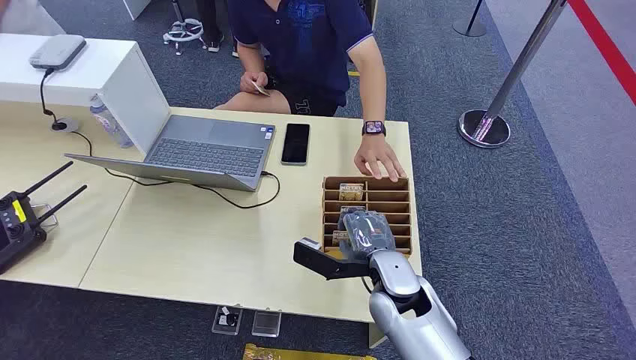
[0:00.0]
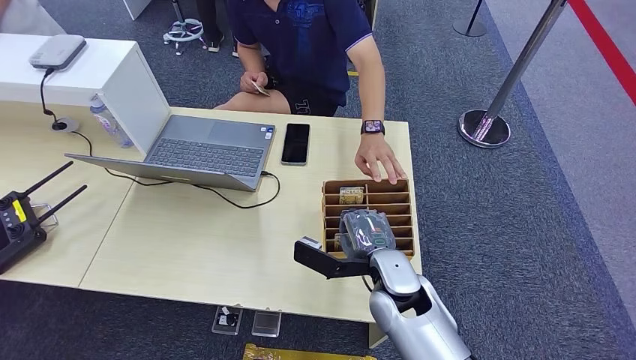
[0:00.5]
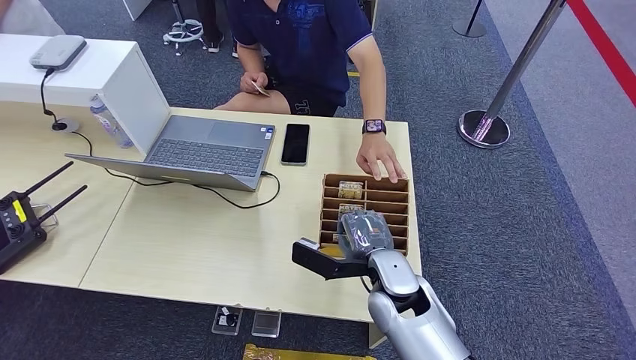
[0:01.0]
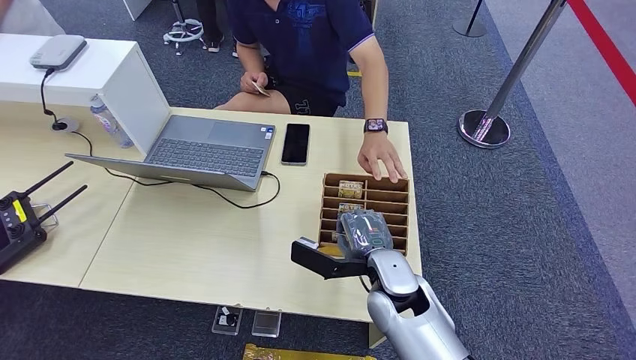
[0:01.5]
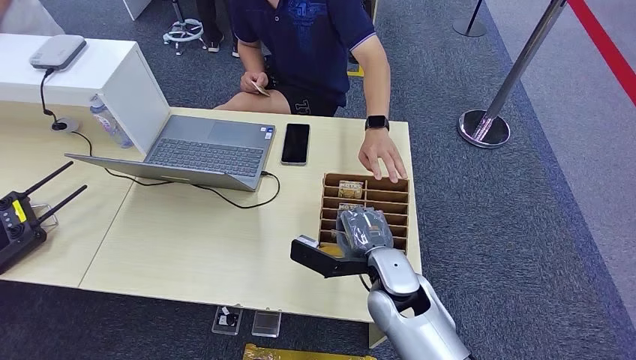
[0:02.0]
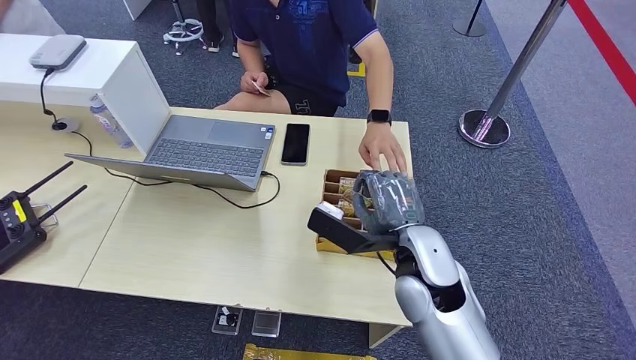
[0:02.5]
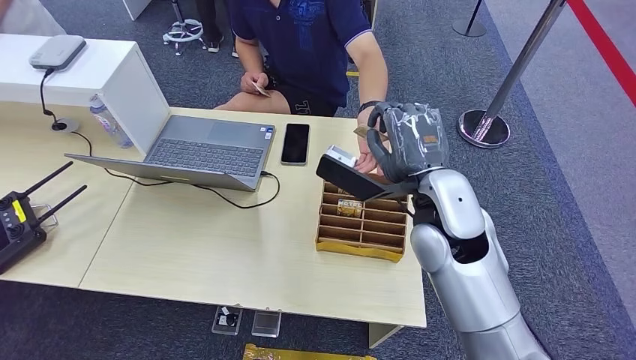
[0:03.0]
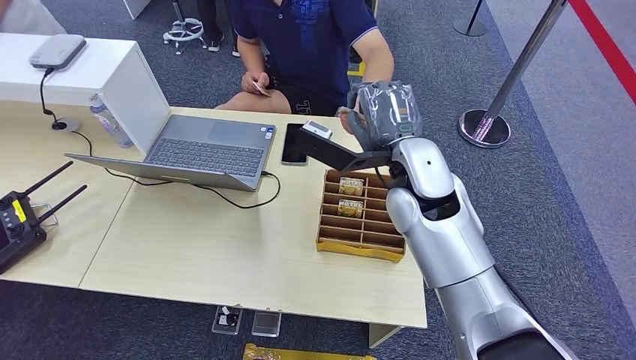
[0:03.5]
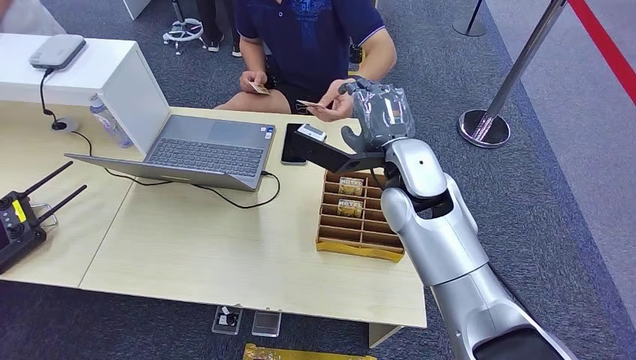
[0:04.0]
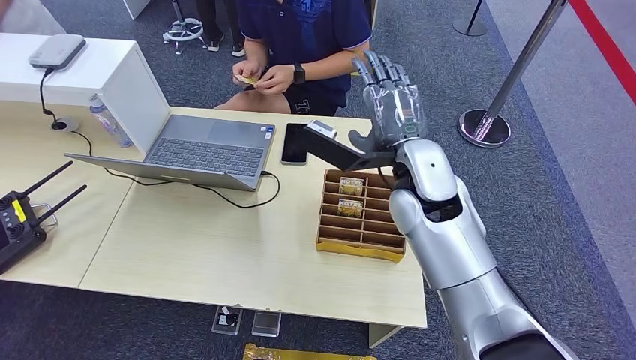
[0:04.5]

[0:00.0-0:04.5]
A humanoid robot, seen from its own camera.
Step, 0:00.0 to 0:02.0: Pick up the key card from the card box.
Step, 0:02.5 to 0:04.5: Hand the key card to the target.
0:02.0 to 0:04.5: The right hand travels upward and forward by about 20 cm.

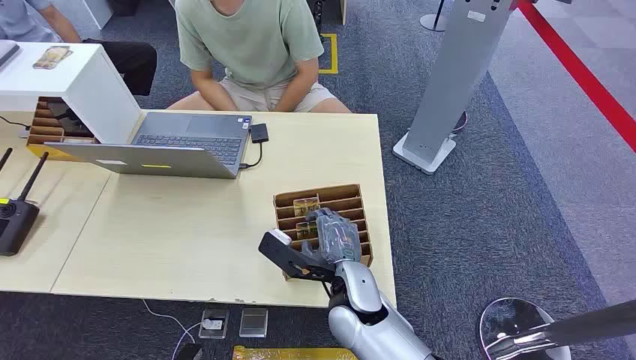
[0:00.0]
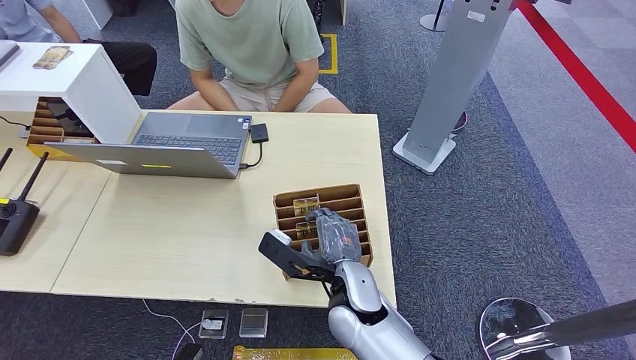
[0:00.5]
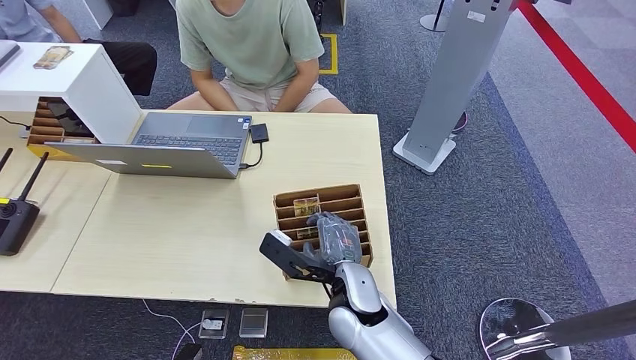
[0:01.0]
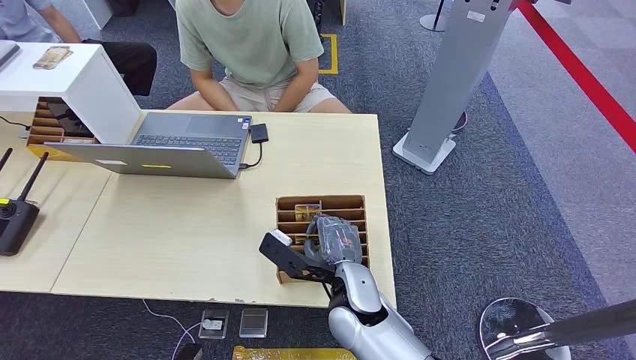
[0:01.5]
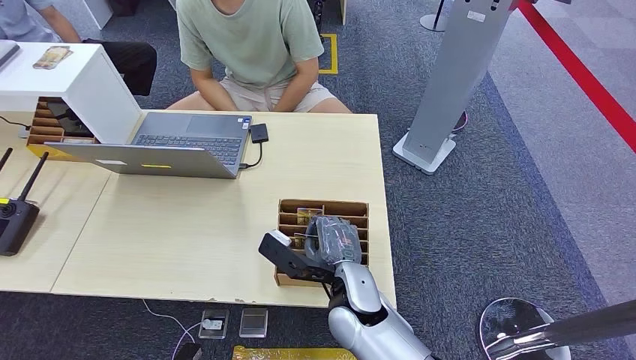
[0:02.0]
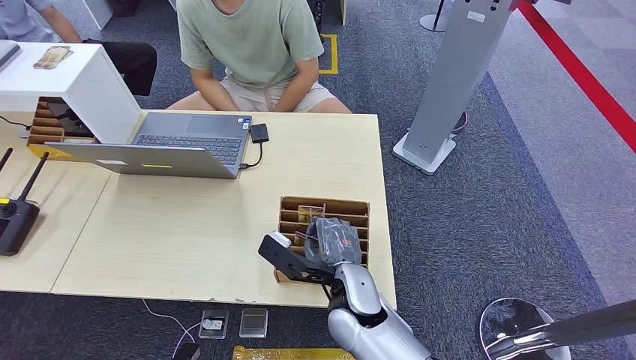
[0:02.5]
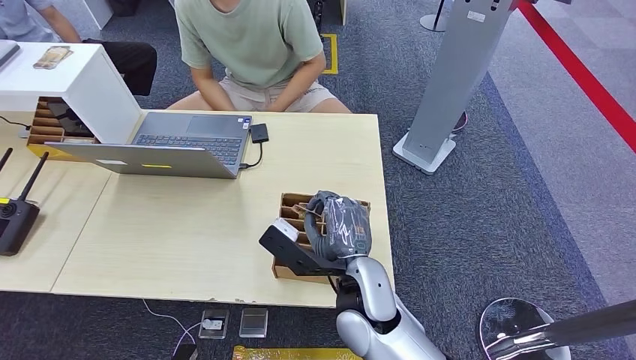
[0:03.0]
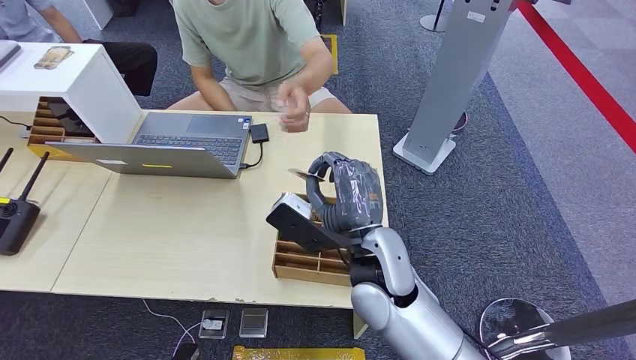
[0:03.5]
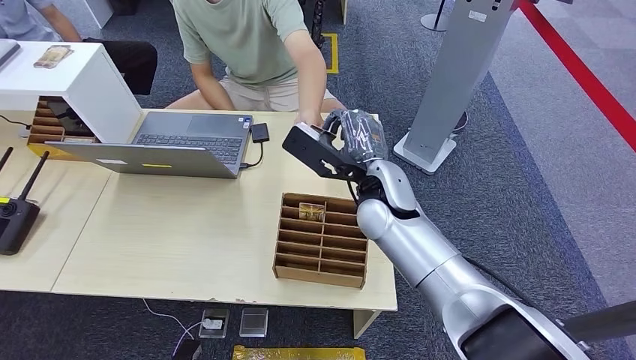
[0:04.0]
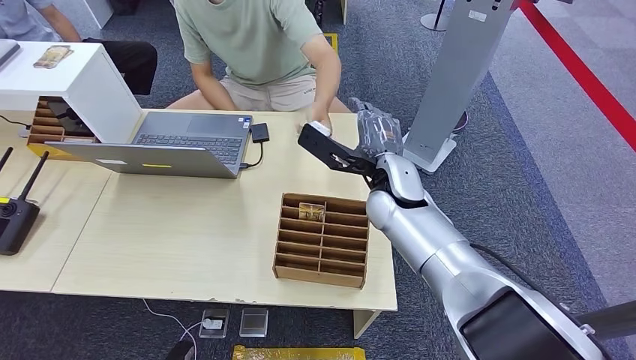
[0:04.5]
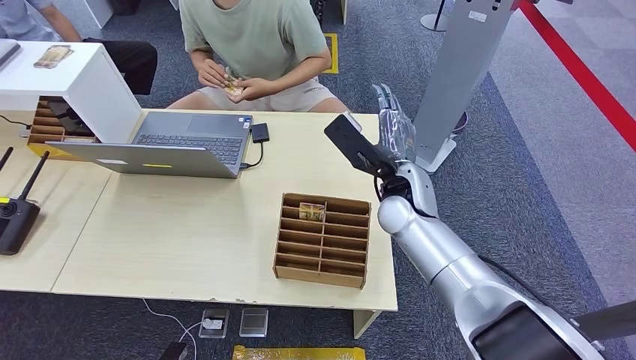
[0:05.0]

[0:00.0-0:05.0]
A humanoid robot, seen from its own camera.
Step, 0:00.0 to 0:03.0: Pick up the key card from the card box.
Step, 0:04.0 to 0:05.0: Hand the key card to the target.
0:02.5 to 0:05.0: The right hand goes roughly 20 cm forward, upward and to the right.
